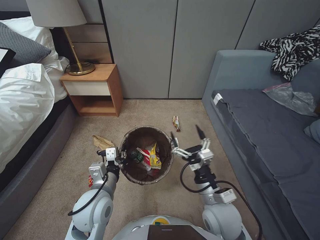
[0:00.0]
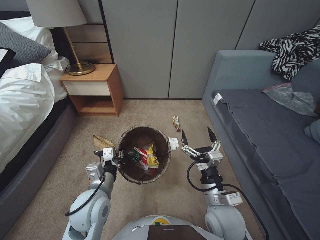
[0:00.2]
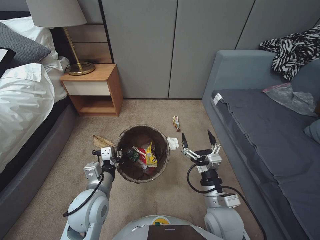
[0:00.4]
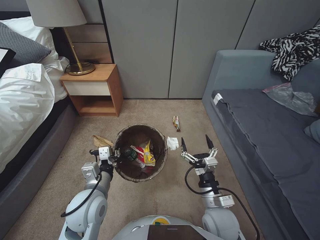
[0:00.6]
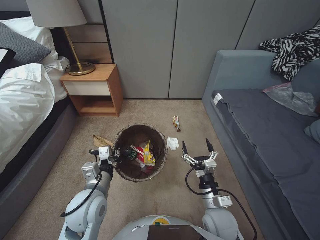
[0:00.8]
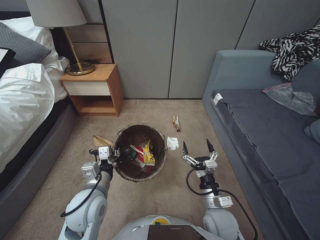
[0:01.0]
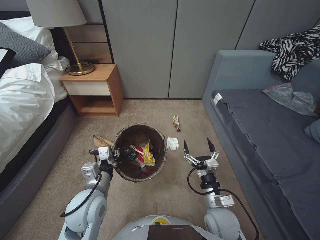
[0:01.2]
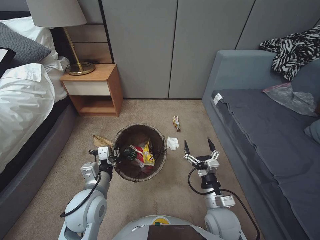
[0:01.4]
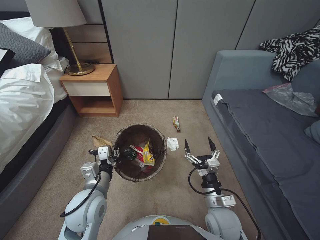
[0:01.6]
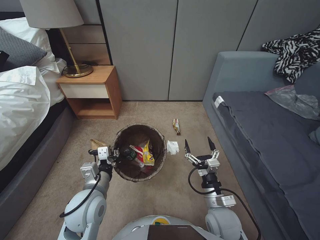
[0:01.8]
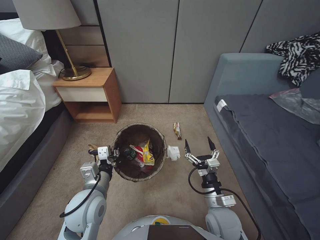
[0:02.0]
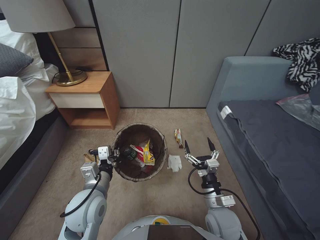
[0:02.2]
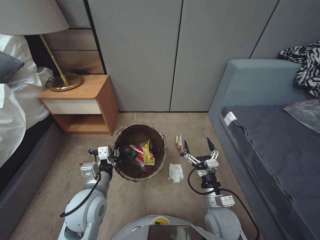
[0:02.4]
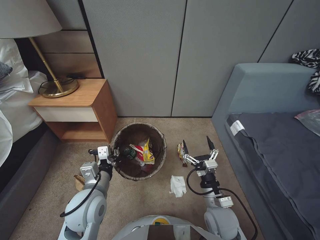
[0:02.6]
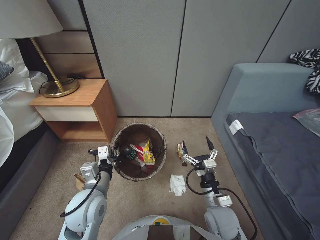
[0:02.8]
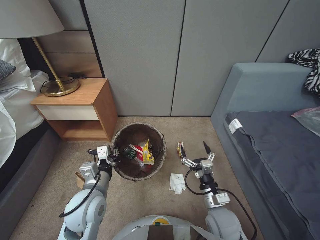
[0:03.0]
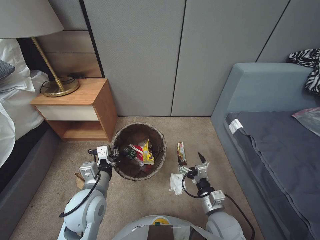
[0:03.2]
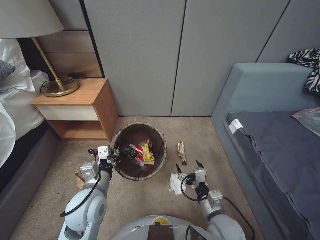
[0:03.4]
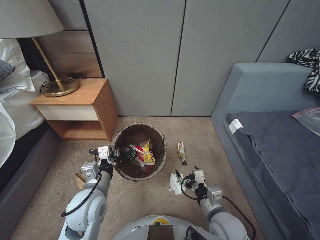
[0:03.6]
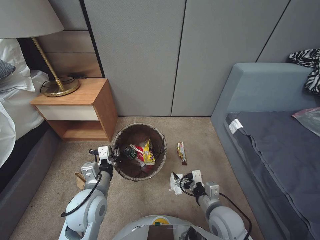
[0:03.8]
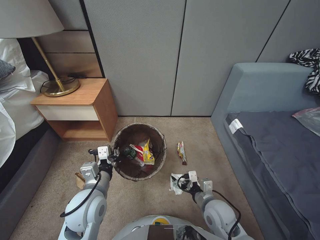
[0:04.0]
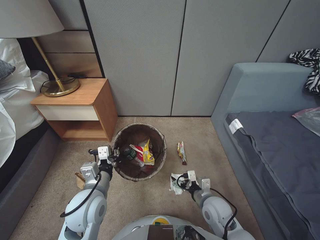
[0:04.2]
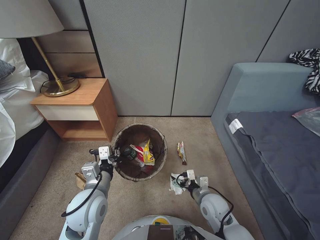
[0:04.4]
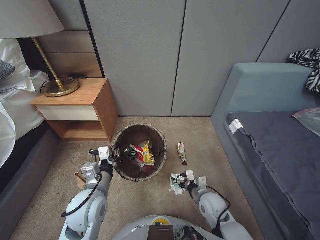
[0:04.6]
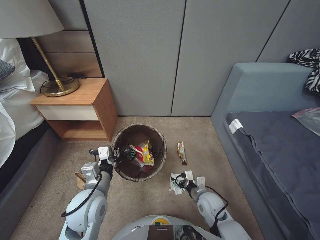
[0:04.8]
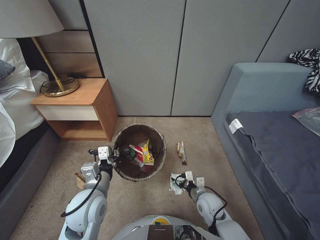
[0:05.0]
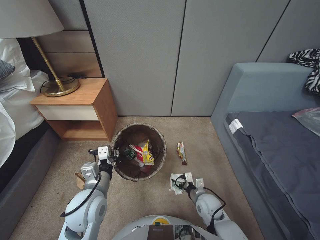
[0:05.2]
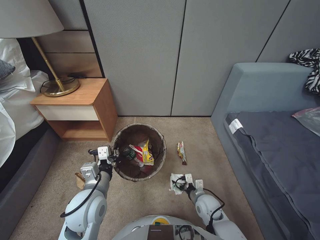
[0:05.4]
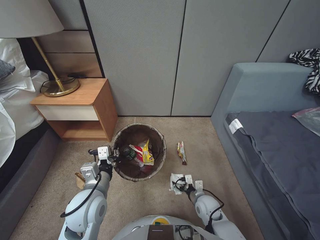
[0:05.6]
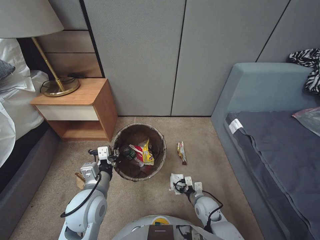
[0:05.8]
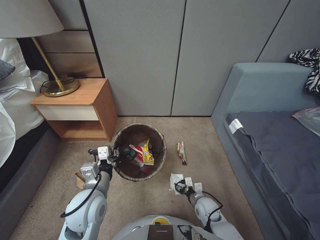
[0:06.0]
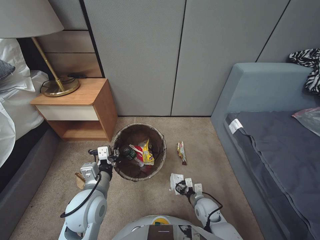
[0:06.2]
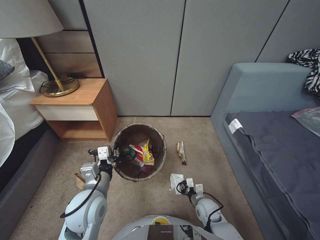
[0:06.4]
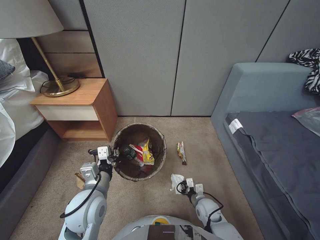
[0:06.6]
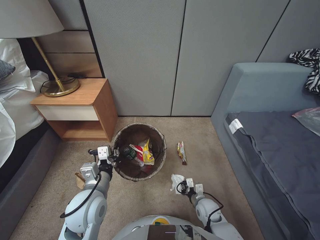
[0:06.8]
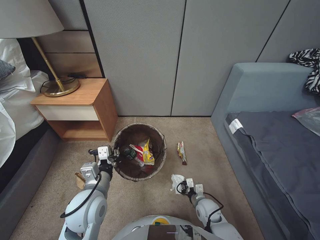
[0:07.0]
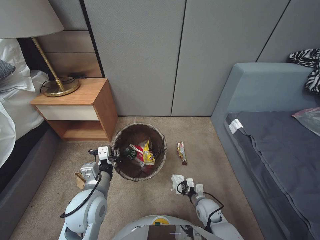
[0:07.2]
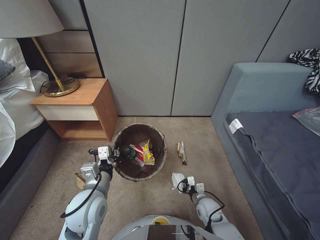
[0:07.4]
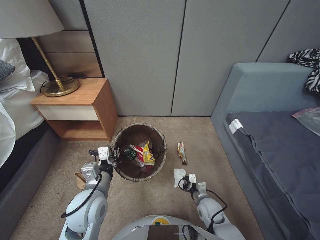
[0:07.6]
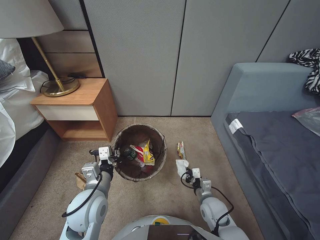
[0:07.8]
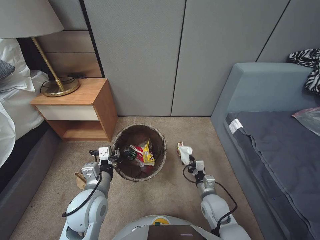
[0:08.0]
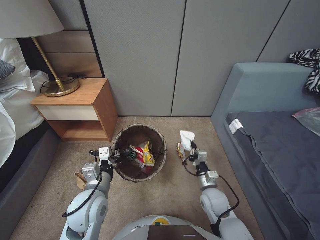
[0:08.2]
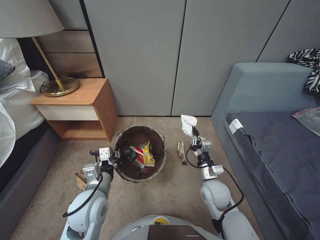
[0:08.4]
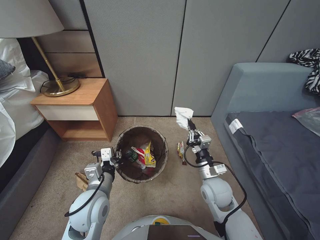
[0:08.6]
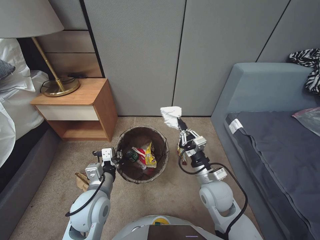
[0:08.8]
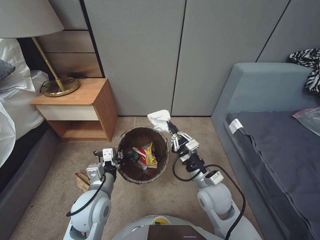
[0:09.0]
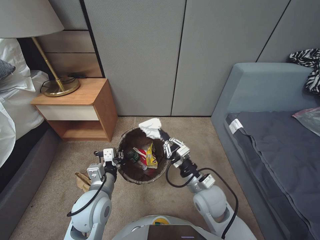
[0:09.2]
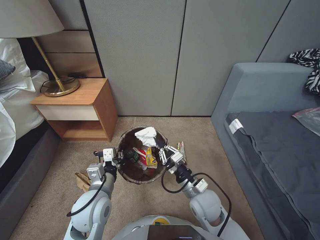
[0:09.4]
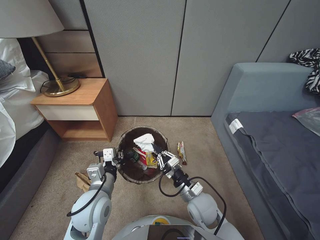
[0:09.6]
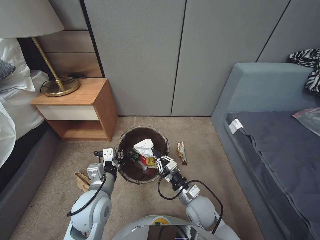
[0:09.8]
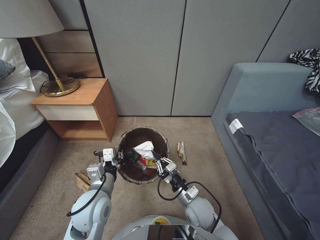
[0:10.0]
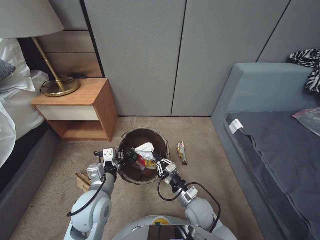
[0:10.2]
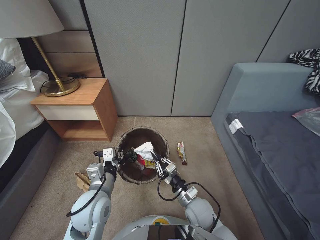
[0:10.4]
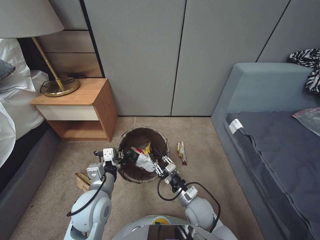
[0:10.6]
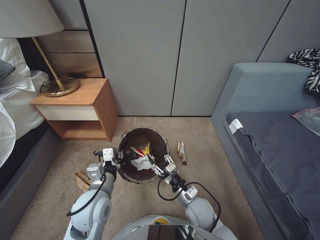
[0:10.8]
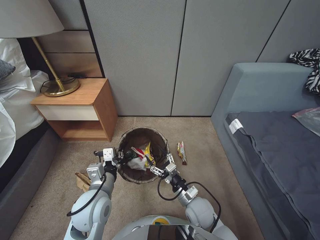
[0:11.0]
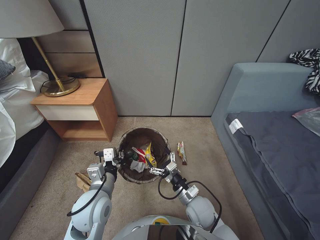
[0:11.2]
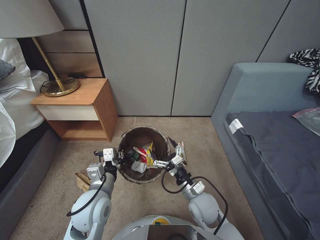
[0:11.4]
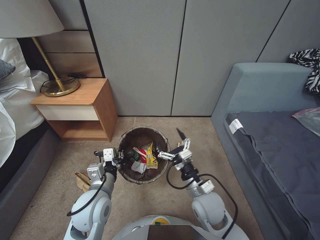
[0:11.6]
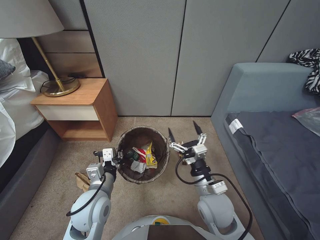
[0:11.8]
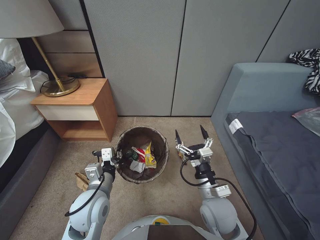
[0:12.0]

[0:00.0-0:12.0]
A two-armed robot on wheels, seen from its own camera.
Task of the whole recording: Pick up the trash bin, then pick up the garbage from the floor and place it into the trash bin.
0:00.0 to 0:01.6: The right gripper travels downward by about 5 cm.
0:03.0 to 0:04.4: The right gripper shifts by about 5 cm.
0:04.4 to 0:06.0: The right gripper moves downward, about 10 cm.
0:06.0 to 0:07.6: The right gripper closes up.
0:07.6 to 0:09.0: The right gripper moves upward, approximately 20 cm.
0:09.0 to 0:10.4: The right gripper heads downward, covering some 10 cm.
0:10.4 to 0:12.0: The right gripper shifts some 10 cm upward, and opens up.

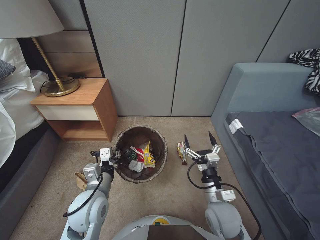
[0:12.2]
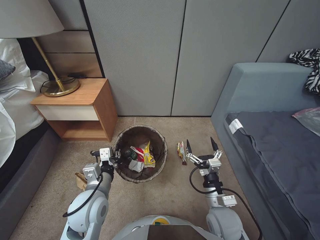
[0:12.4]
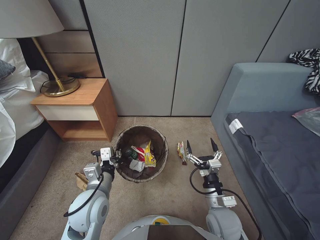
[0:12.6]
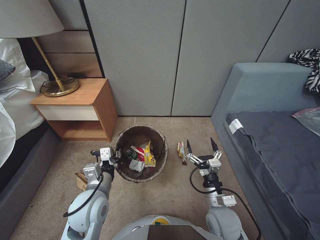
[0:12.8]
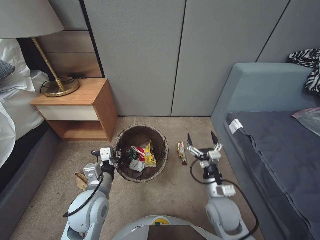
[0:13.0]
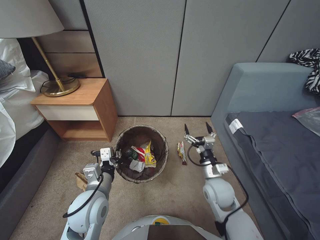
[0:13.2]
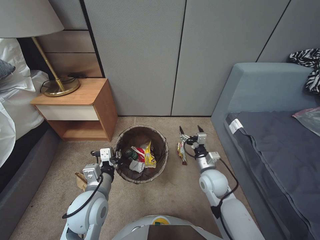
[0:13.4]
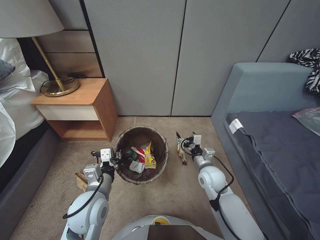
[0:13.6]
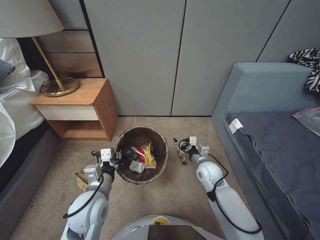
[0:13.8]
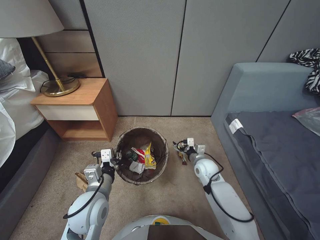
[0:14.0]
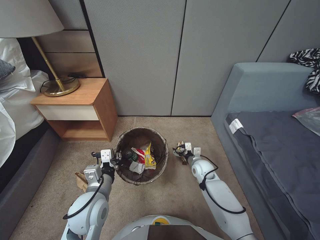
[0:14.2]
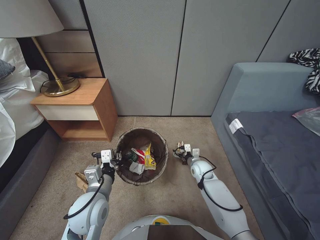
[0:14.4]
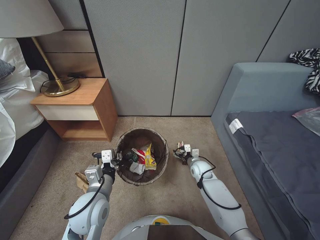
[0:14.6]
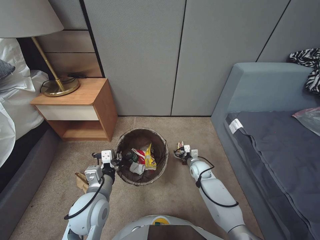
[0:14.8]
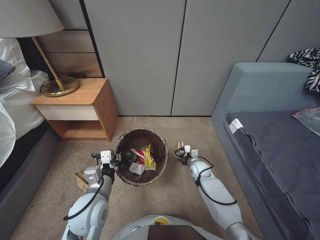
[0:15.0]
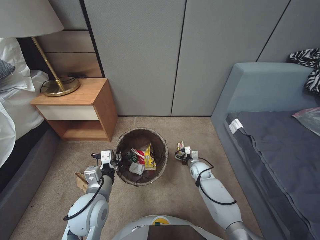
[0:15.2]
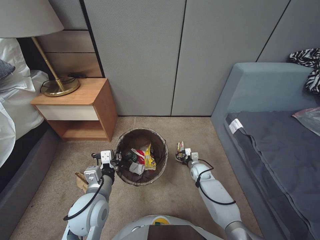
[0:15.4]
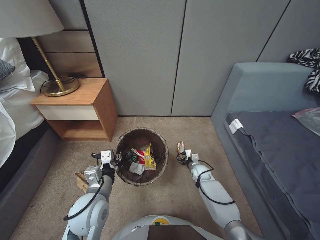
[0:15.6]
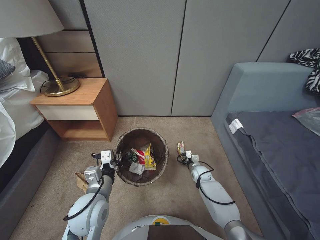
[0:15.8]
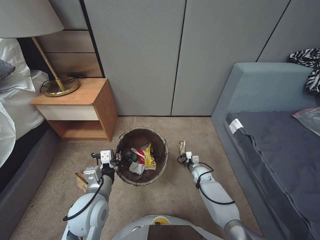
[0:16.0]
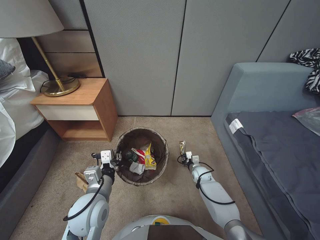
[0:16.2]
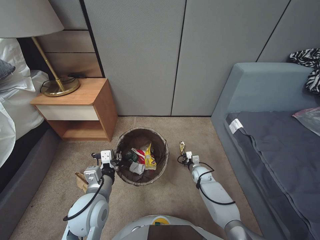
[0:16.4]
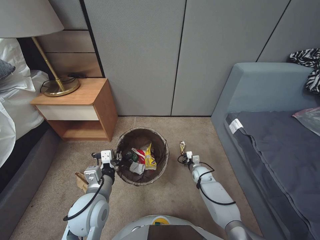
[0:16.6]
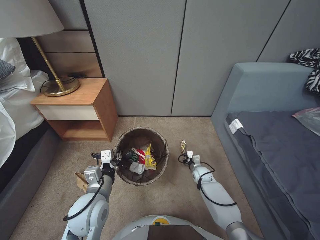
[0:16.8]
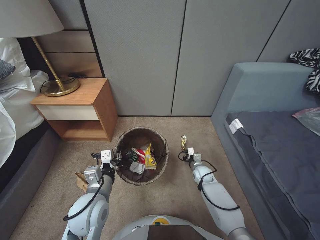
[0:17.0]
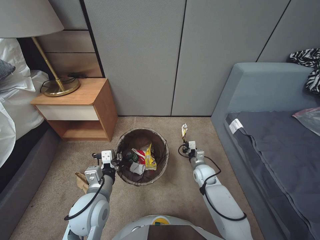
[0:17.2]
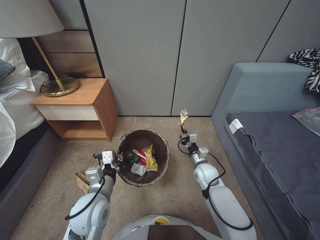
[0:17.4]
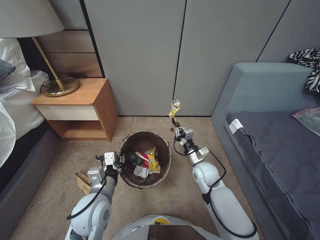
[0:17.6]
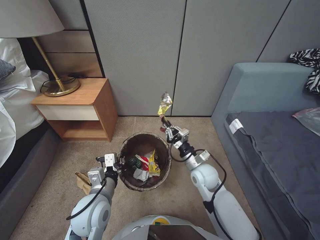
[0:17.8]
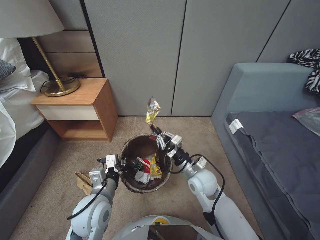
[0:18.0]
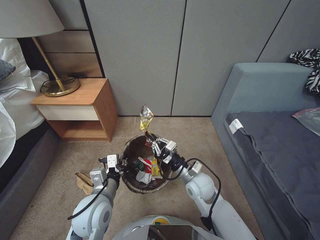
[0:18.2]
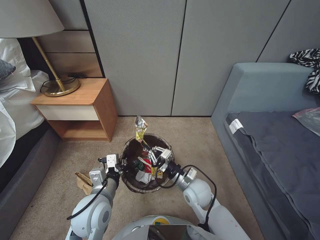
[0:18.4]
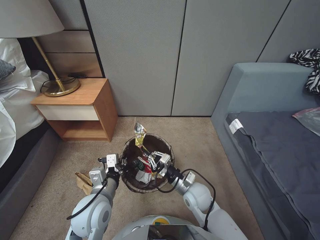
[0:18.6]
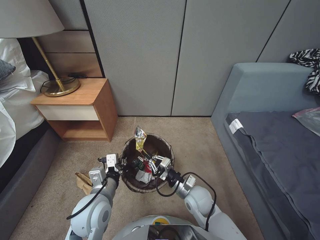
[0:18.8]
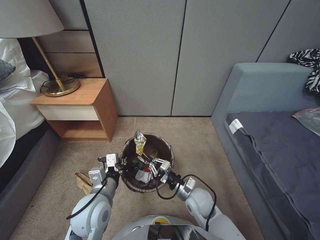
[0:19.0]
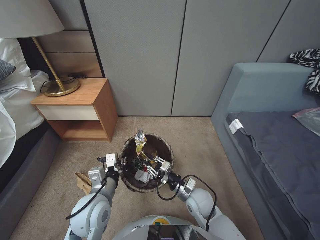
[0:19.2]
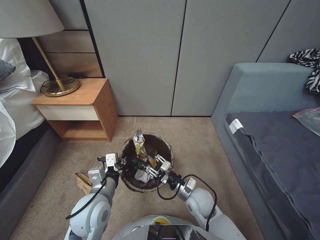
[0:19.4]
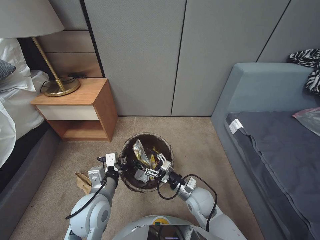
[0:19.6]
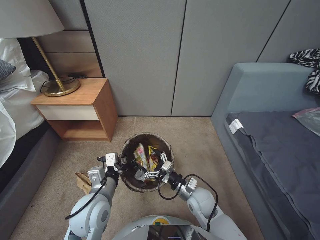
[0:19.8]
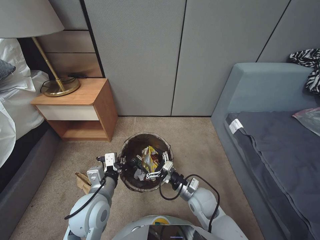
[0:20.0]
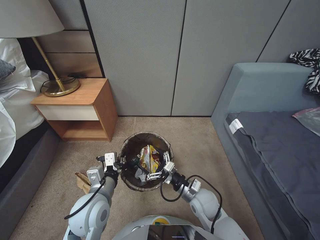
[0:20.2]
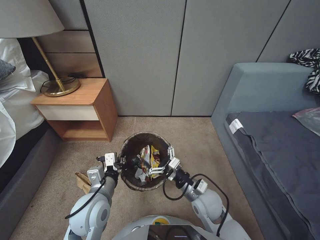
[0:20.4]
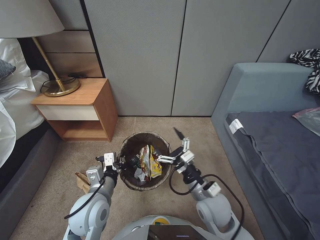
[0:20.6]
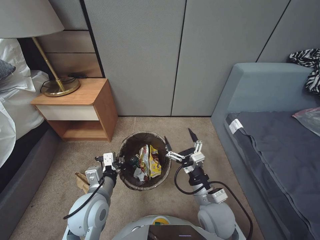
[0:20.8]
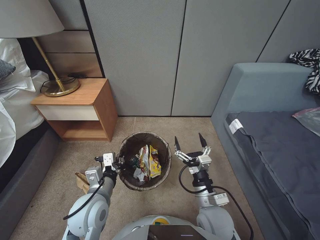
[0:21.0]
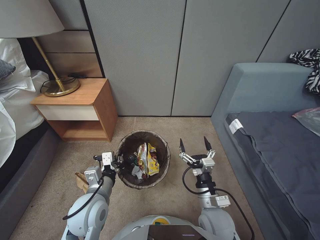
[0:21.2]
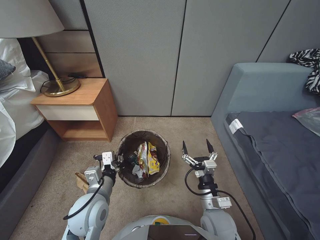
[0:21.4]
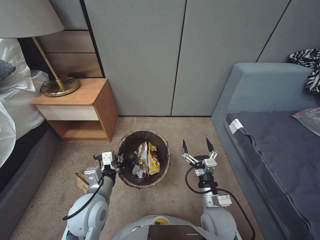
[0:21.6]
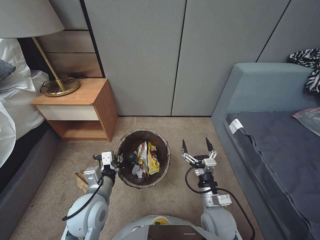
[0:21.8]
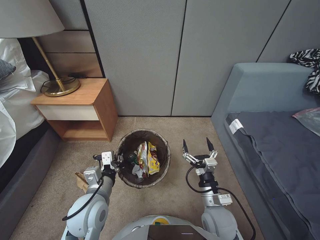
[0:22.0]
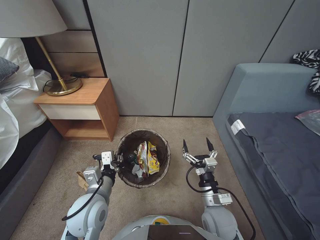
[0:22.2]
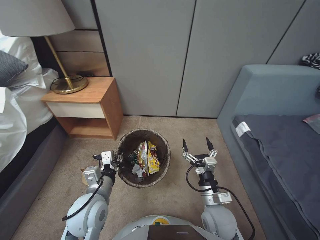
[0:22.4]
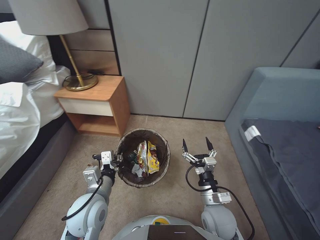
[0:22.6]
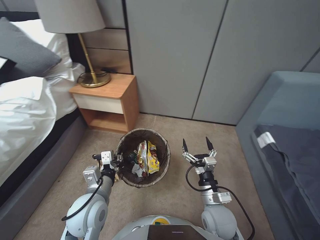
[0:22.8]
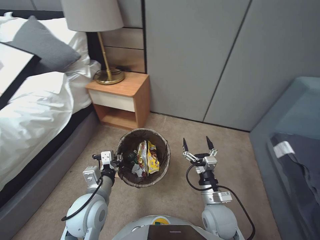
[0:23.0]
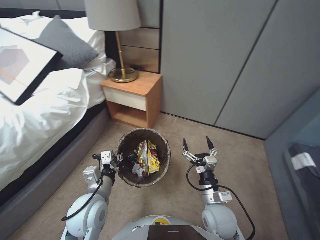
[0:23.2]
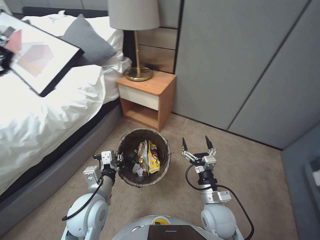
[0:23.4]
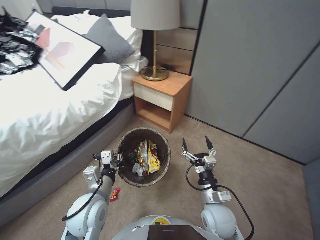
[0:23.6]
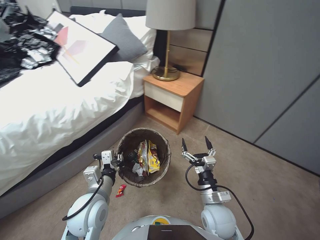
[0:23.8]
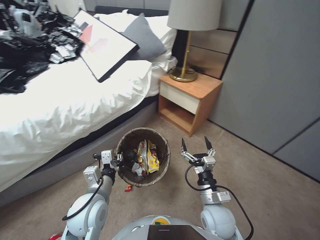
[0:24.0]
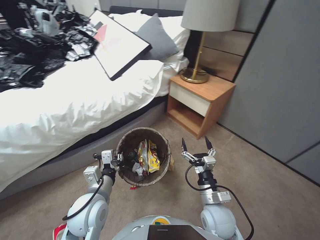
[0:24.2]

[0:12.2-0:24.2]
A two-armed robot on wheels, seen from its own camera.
Task of the whole recording: Pick up the trash bin, then pick up the garbage from the floor and place it into the trash bin.
0:12.2 to 0:13.8: The right gripper travels forward by approximately 10 cm.
0:13.8 to 0:15.2: The right gripper shifts approximately 15 cm downward and forward.
0:15.2 to 0:16.6: The right gripper closes up.
0:16.6 to 0:18.2: The right gripper goes about 25 cm upward, backward and to the left.
0:18.2 to 0:19.8: The right gripper travels downward by approximately 5 cm, and opens its fingers.
0:19.8 to 0:21.2: The right gripper heads backward and upward, covering about 10 cm.
